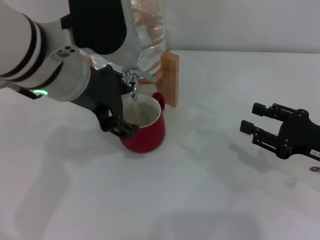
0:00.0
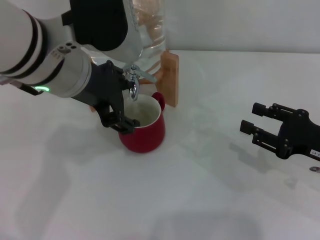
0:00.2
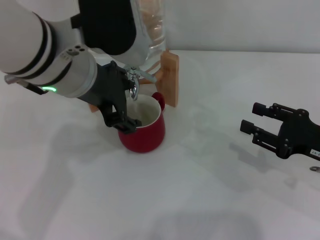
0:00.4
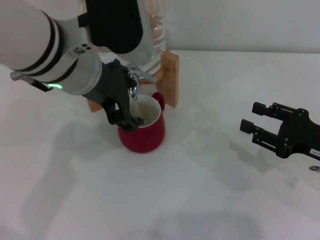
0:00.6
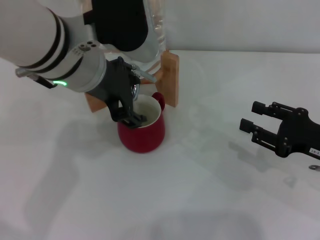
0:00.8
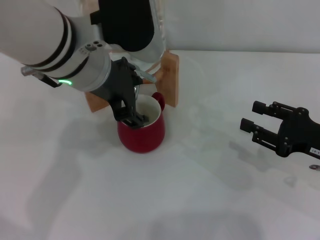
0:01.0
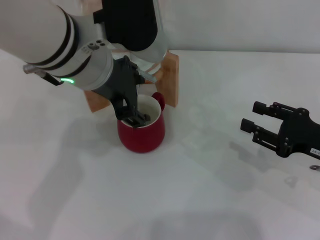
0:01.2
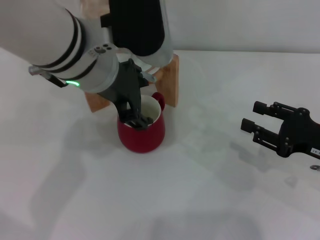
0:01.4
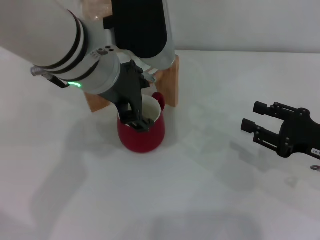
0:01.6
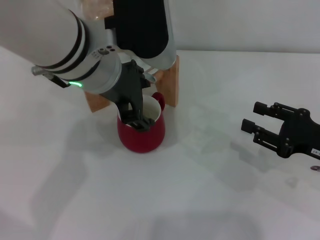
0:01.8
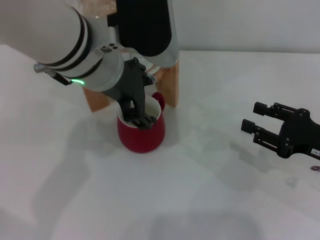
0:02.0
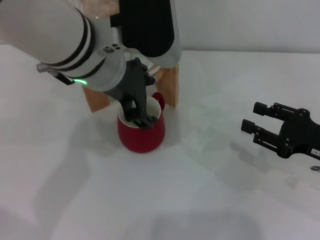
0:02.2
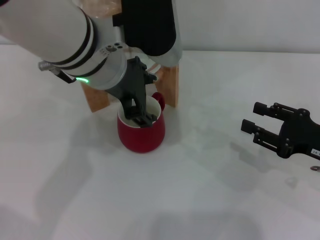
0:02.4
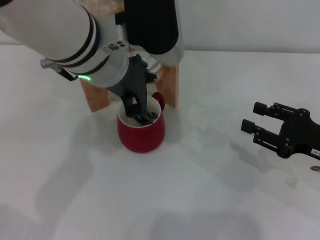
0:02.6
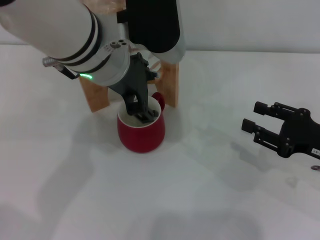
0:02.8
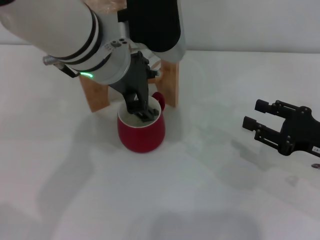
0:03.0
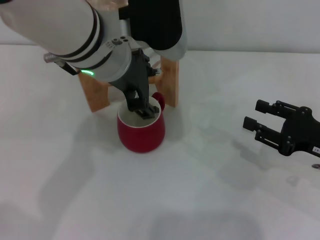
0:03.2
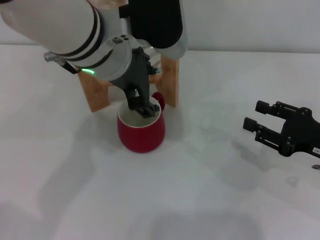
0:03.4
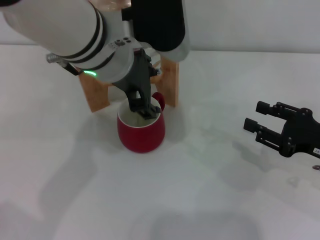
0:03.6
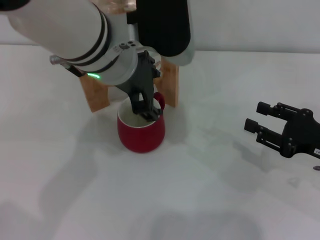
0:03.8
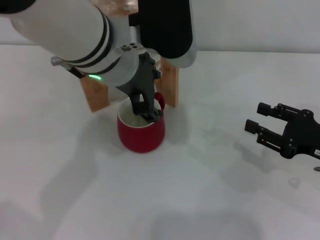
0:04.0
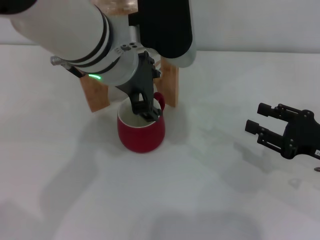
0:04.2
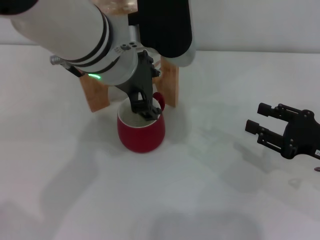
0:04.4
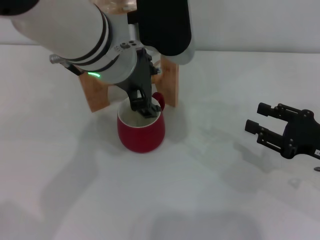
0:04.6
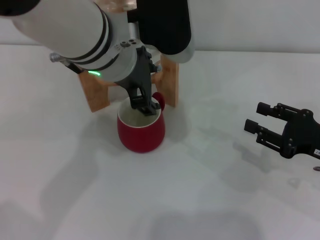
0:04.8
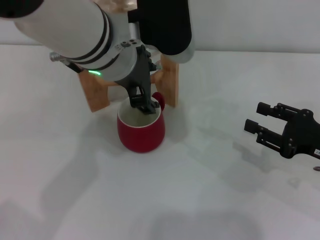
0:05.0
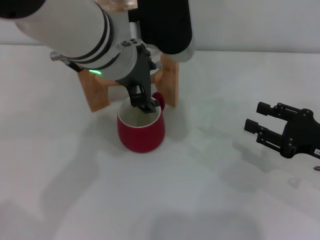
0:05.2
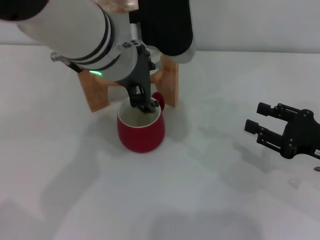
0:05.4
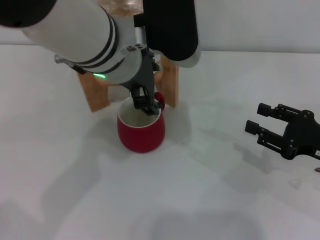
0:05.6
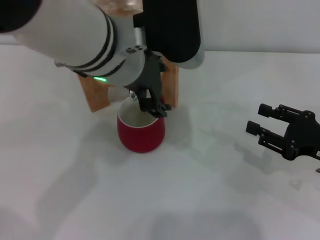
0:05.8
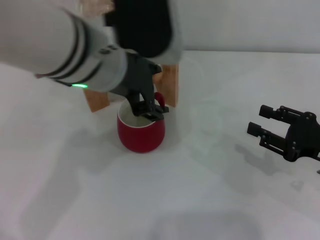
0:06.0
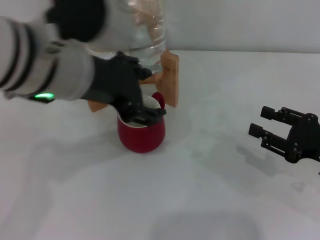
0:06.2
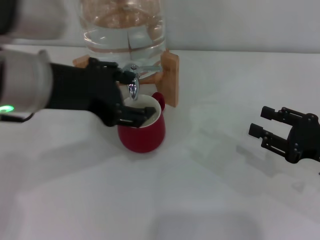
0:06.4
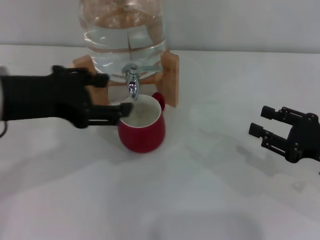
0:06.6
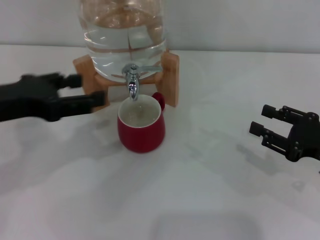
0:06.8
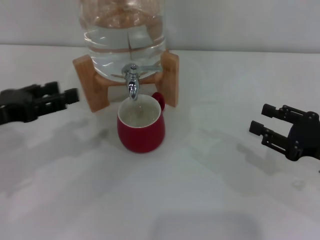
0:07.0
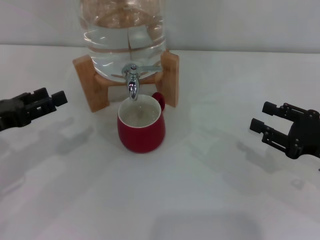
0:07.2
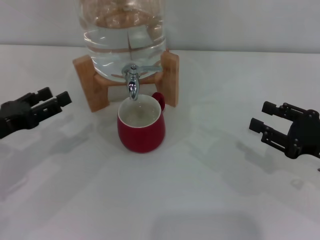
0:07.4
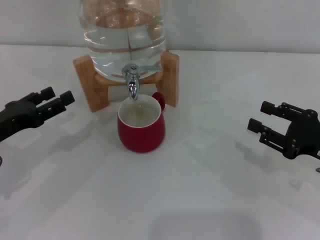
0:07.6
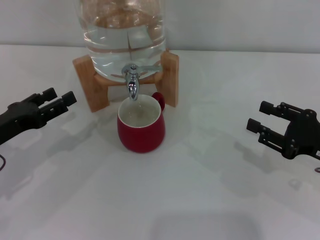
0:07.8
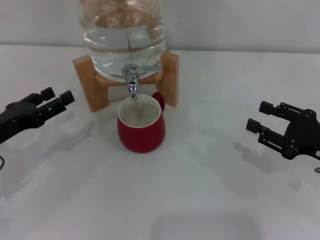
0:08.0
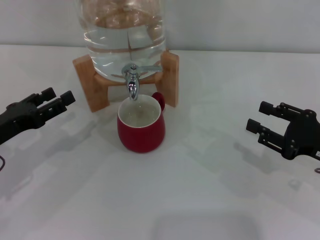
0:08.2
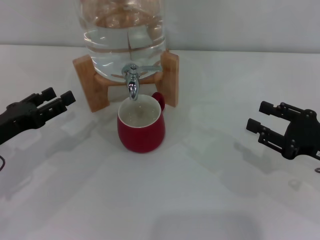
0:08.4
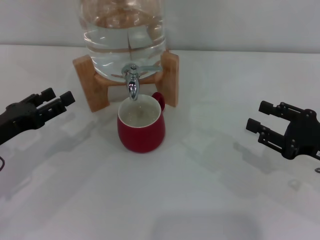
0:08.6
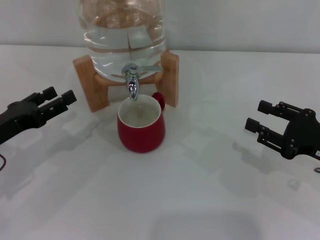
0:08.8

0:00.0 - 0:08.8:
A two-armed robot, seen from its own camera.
Task of the whole recording: the right gripper pick up the red cup and place it horizontally under the faucet, the left gripper turn on the faucet to fill the cup, and then turn off the faucet.
Step, 0:00.0 - 0:06.4: Close the dispenser valve with the left gripper.
0:00.0 - 0:03.0: The grippers move only a little.
0:03.0 - 0:04.4: The two grippers keep their place.
0:04.4 - 0:05.8: The grippers move only a little.
0:05.8 - 0:07.4: The left gripper goes approximately 30 cm to the left and downward.
0:07.4 - 0:08.8: There are only small adjustments of the grippers.
